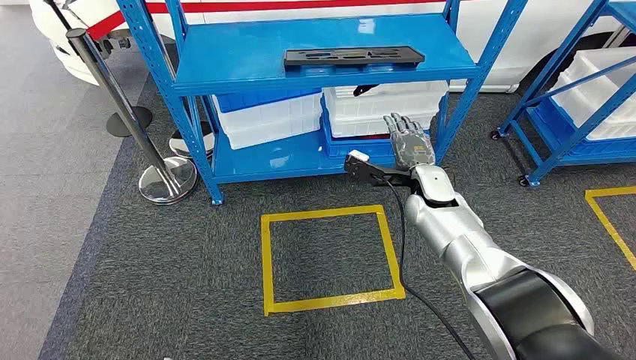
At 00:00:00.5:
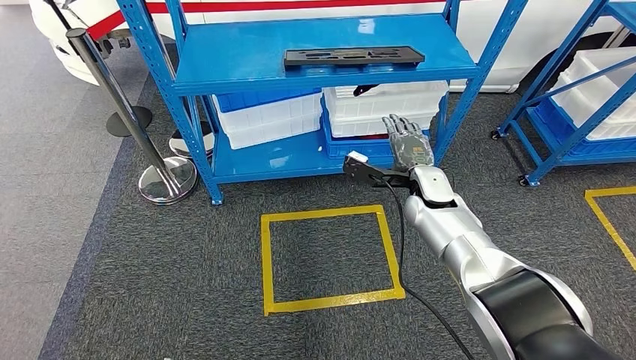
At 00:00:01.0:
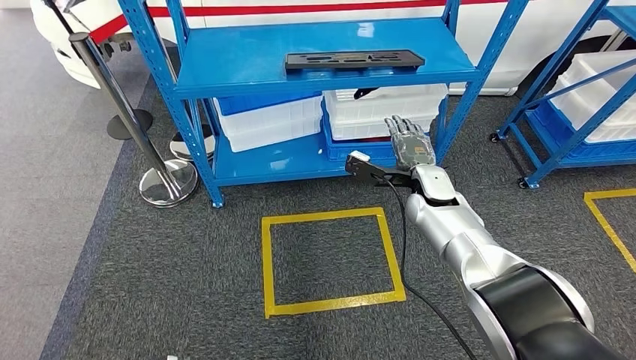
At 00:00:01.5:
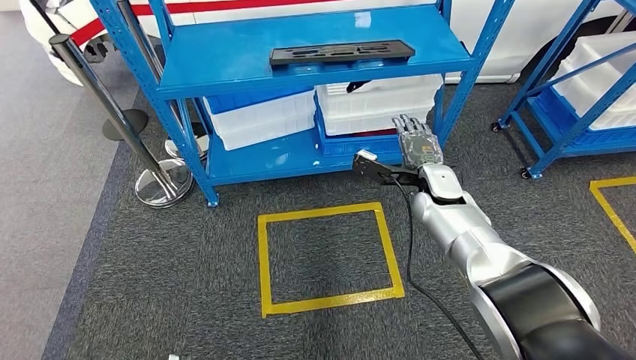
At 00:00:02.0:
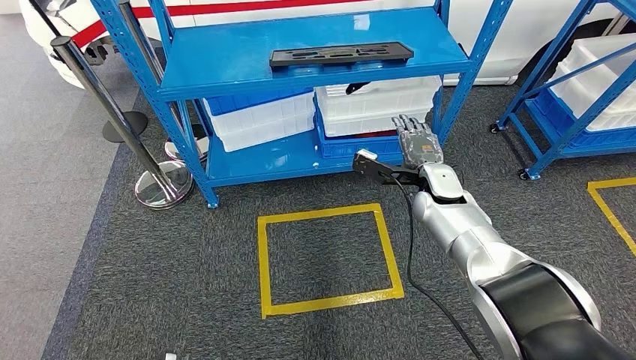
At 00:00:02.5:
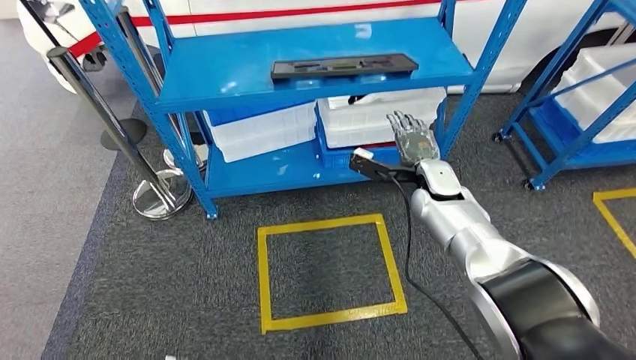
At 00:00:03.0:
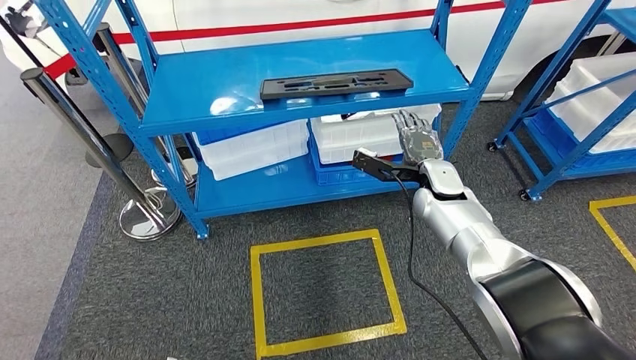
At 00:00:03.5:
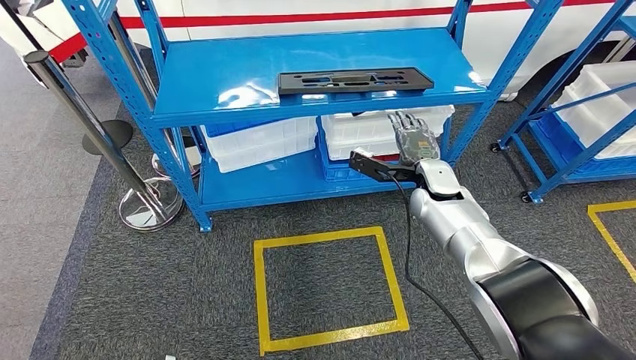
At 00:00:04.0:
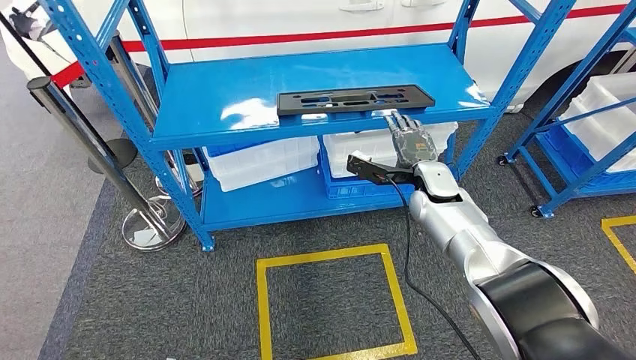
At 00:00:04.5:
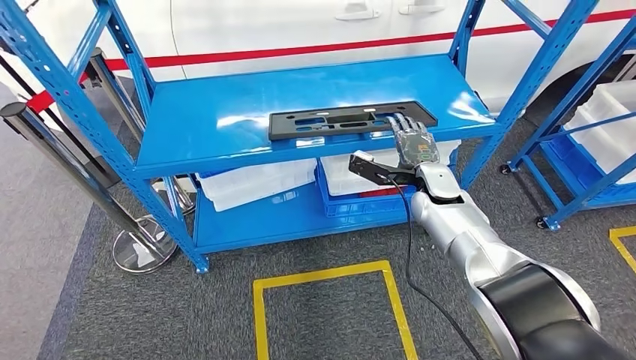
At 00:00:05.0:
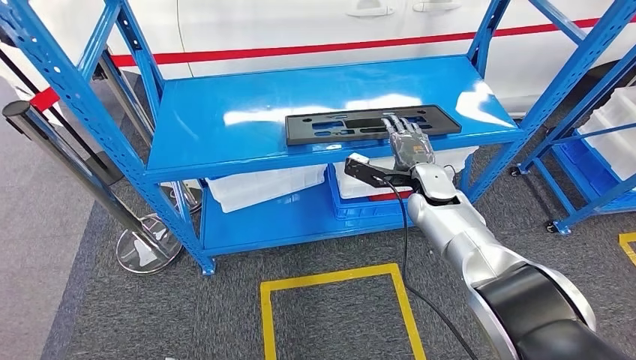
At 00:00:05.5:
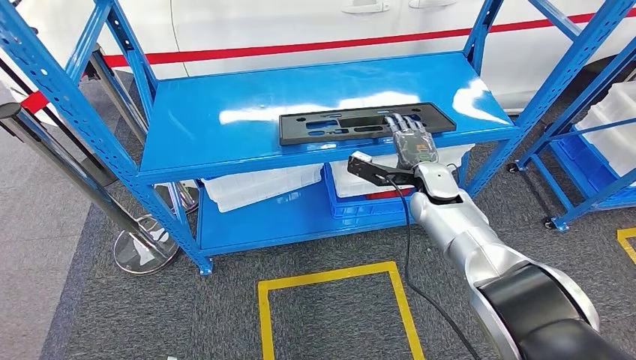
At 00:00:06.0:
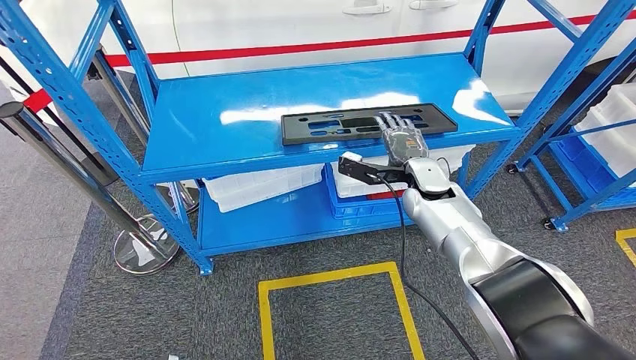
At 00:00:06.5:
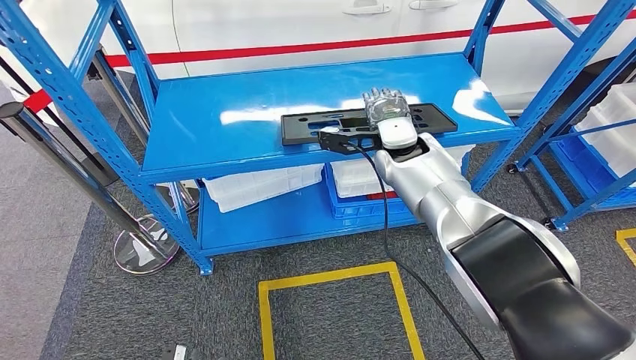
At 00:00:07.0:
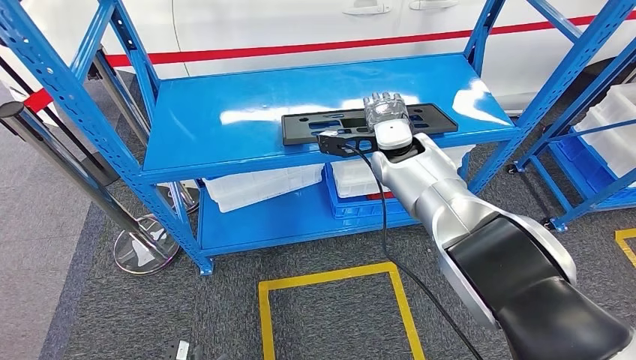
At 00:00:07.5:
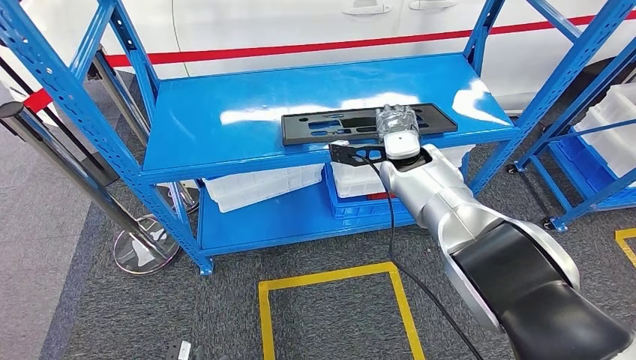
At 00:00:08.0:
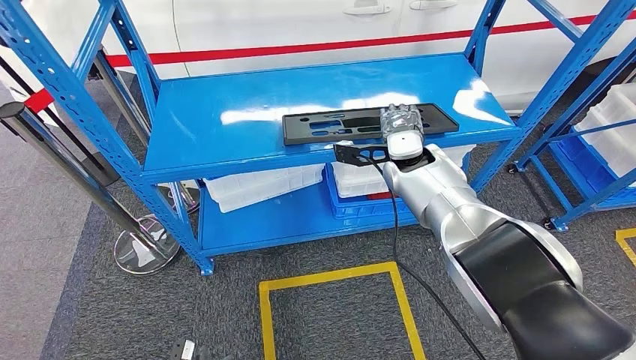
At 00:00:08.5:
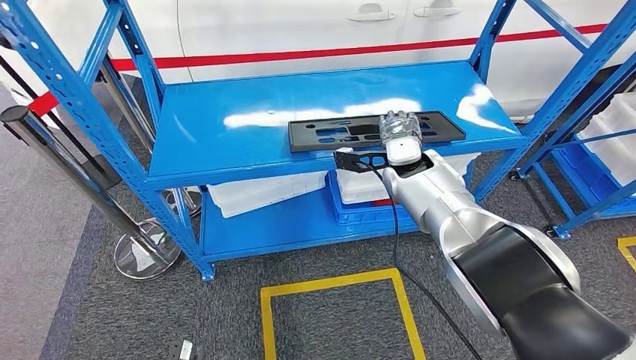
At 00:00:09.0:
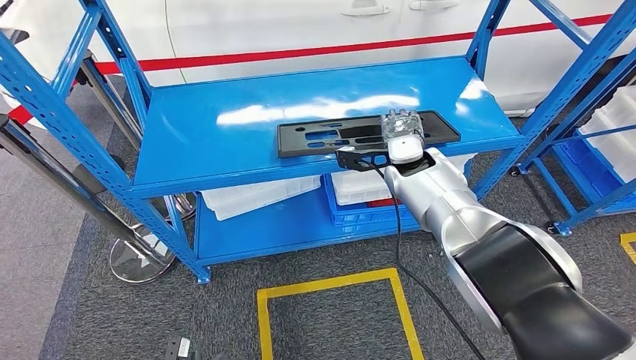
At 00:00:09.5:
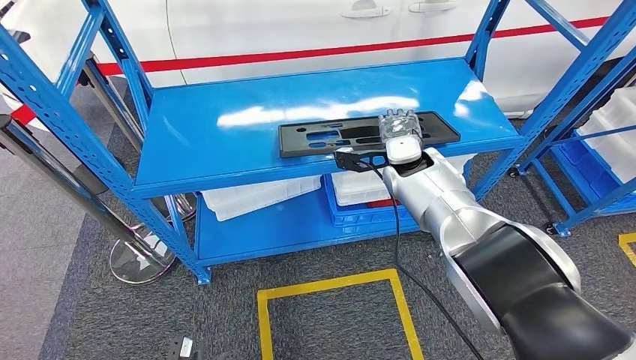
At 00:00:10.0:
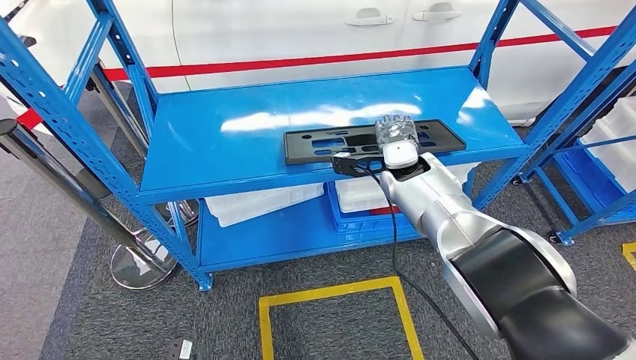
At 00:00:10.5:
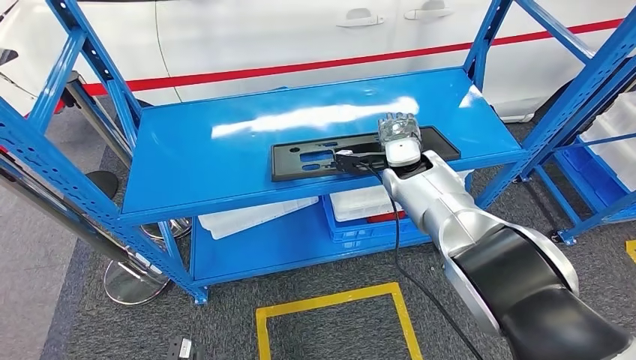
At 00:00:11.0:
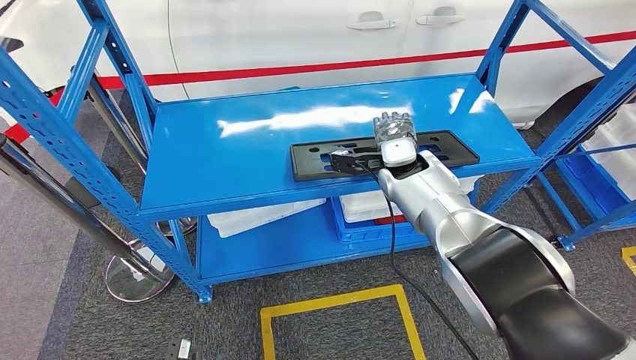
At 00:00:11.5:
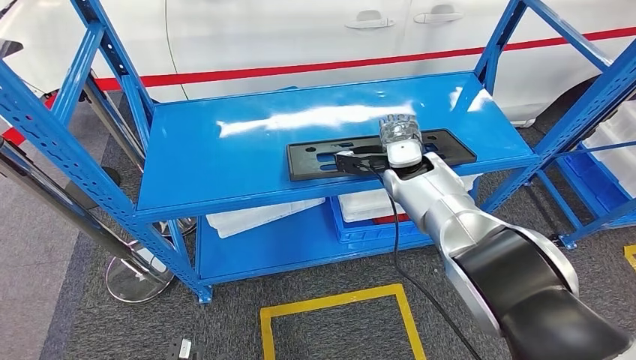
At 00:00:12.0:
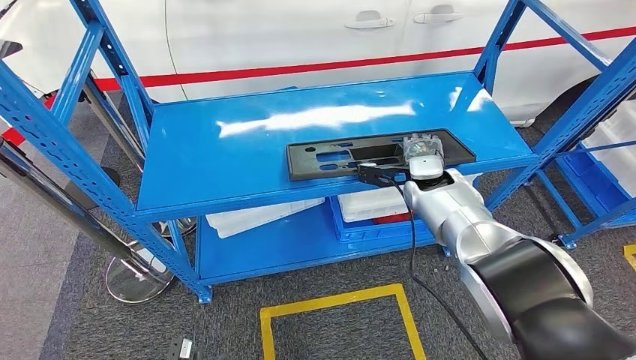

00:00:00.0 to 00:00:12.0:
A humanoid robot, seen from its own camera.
00:00:06.0 to 00:00:08.0: The right hand moves upward, approximately 5 cm.

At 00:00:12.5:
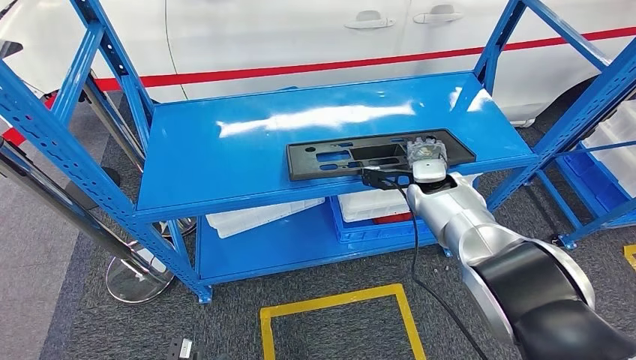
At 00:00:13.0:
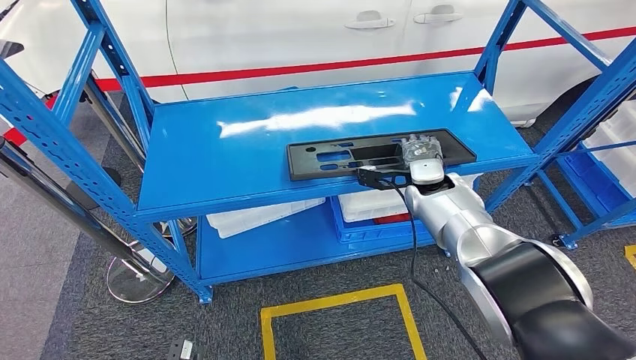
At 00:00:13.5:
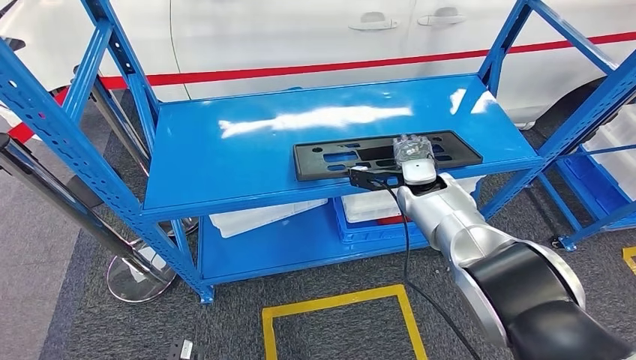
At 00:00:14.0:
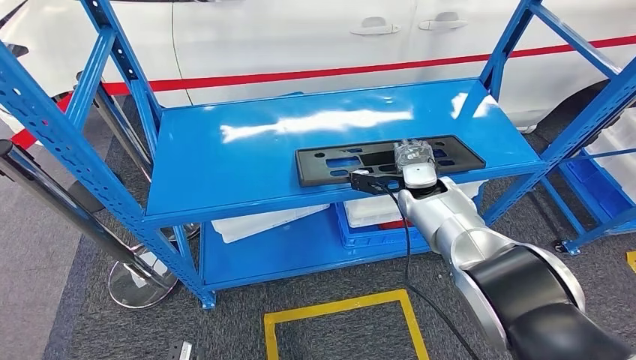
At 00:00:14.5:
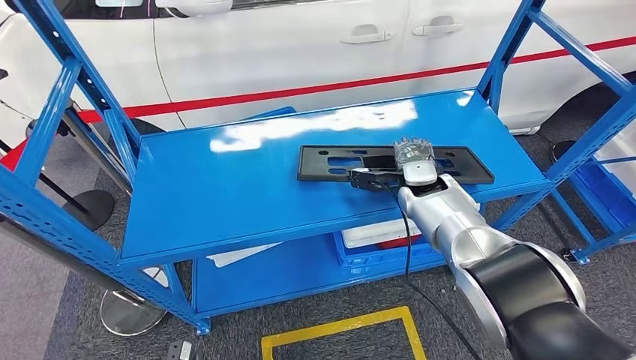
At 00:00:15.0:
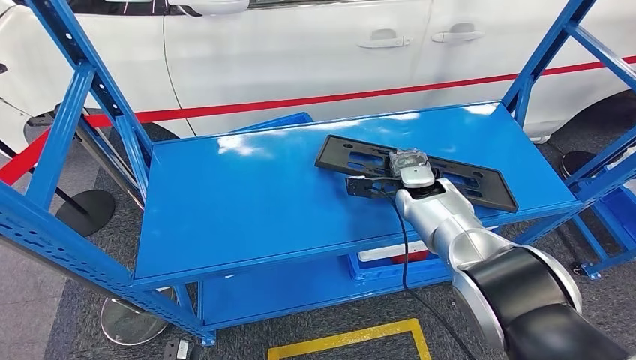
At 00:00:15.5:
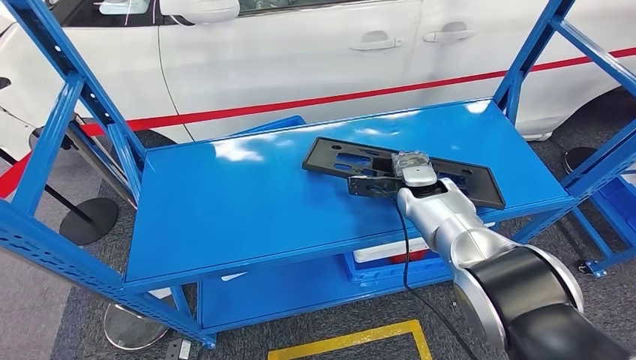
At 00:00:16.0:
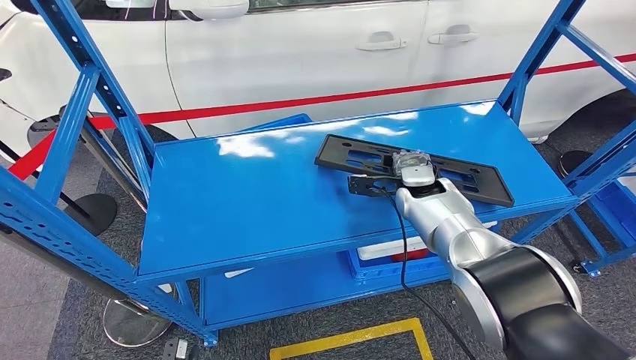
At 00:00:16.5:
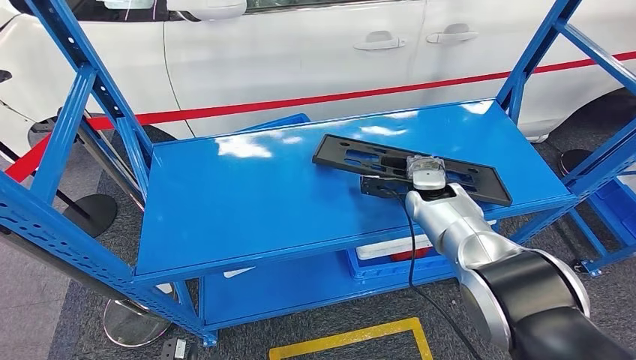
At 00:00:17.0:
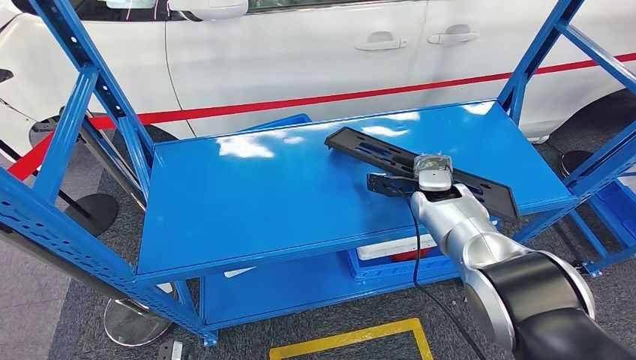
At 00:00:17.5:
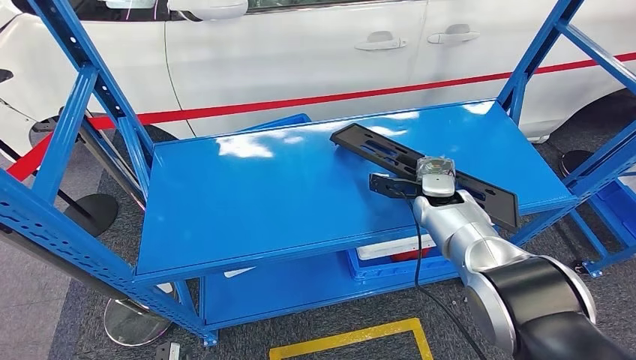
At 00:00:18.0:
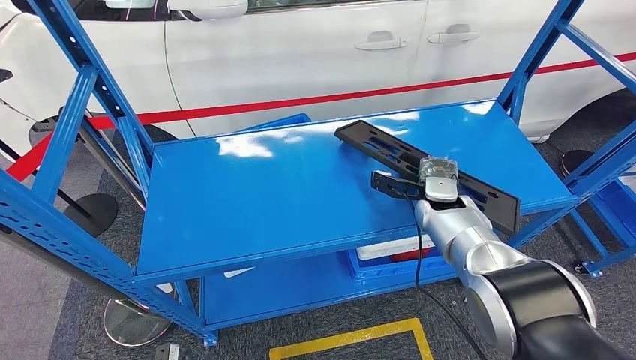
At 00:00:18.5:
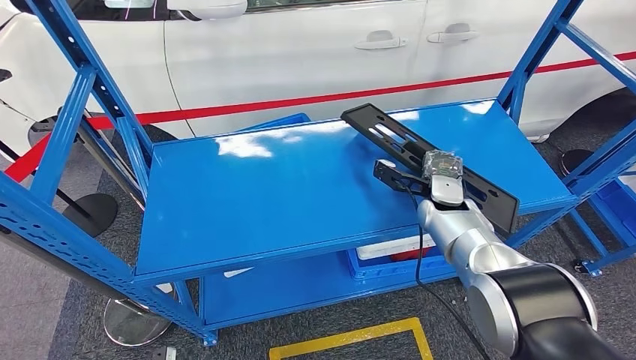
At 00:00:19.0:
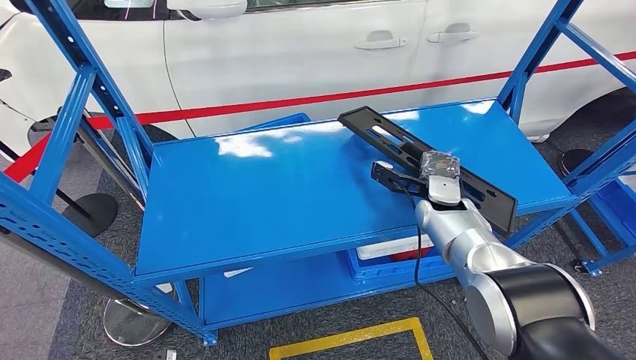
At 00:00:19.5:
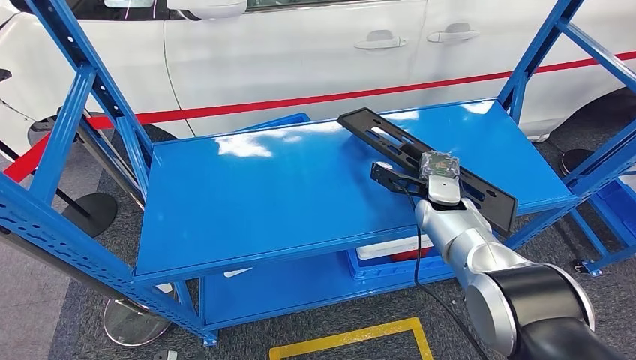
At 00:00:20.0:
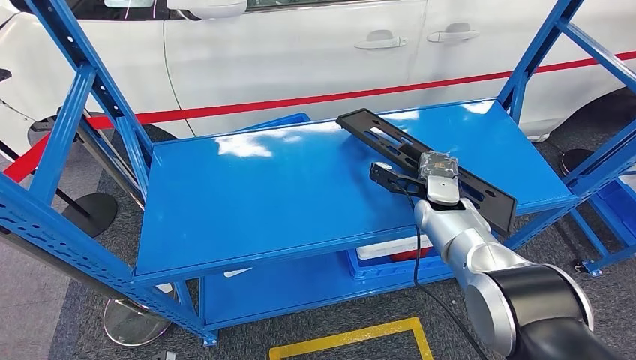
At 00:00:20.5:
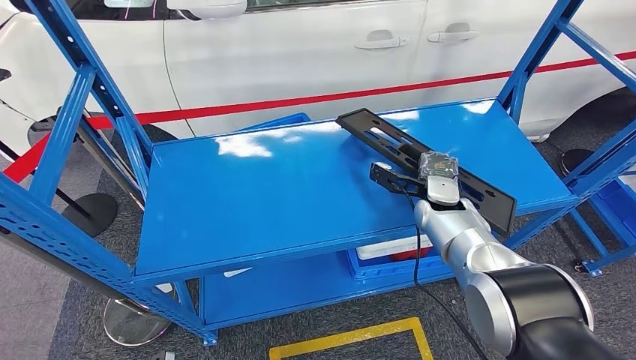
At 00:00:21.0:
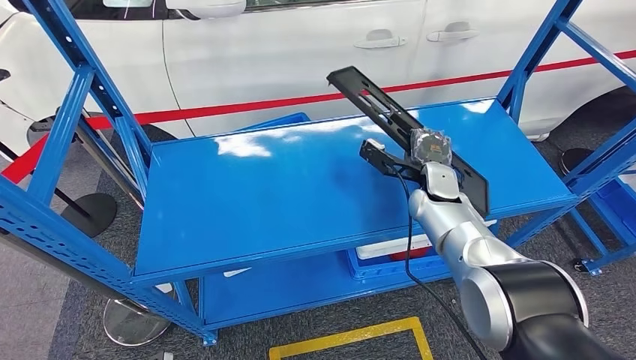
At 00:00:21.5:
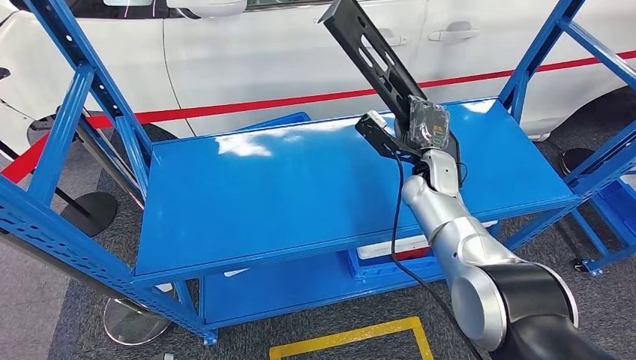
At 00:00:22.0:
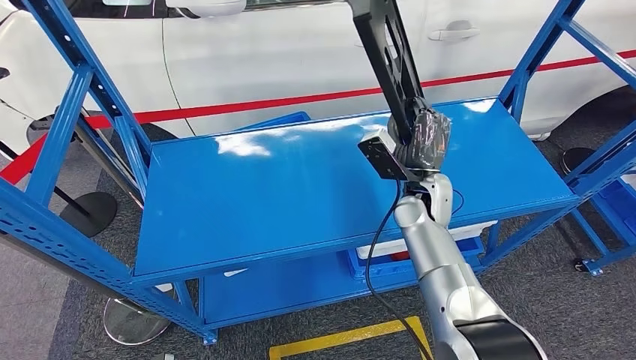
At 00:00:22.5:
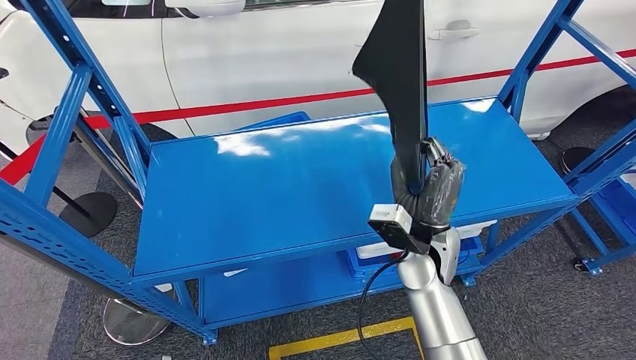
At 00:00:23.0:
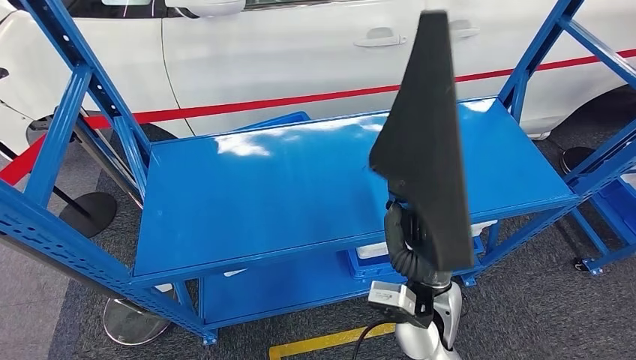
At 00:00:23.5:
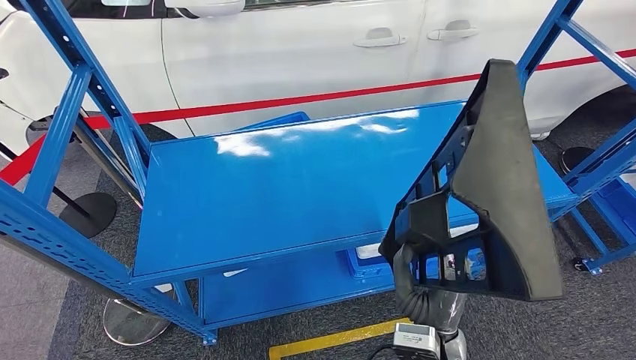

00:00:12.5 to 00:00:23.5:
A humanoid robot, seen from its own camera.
00:00:16.0 to 00:00:18.0: The right hand shifts by roughly 5 cm.
00:00:18.0 to 00:00:20.0: There are only small adjustments of the hands.
00:00:20.0 to 00:00:21.5: The right hand moves upward, about 5 cm.
00:00:21.5 to 00:00:23.5: The right hand is displaced backward by roughly 30 cm.
